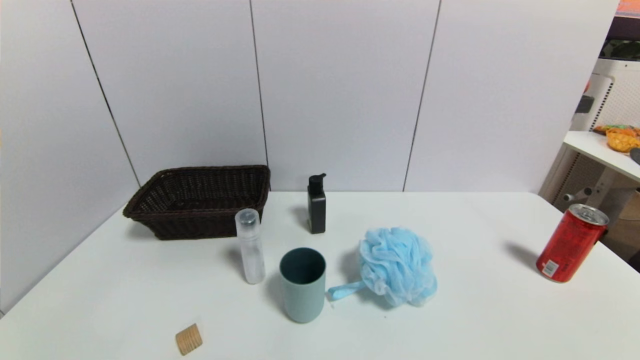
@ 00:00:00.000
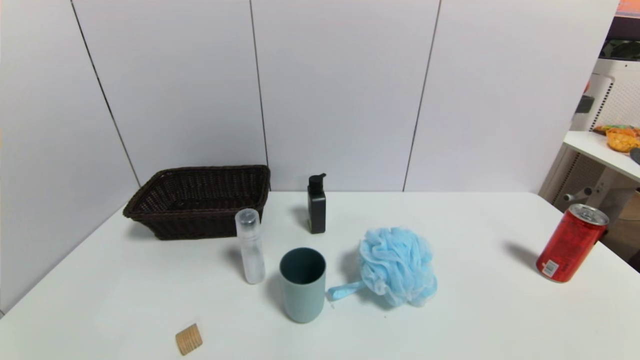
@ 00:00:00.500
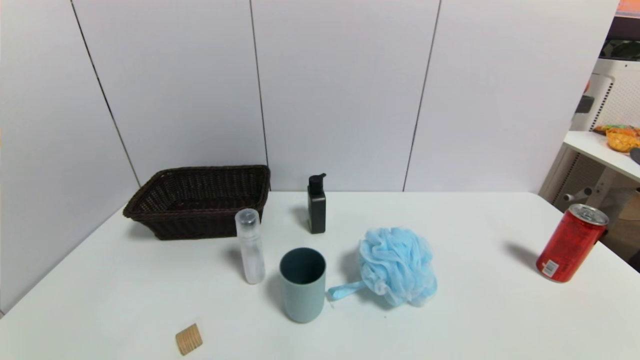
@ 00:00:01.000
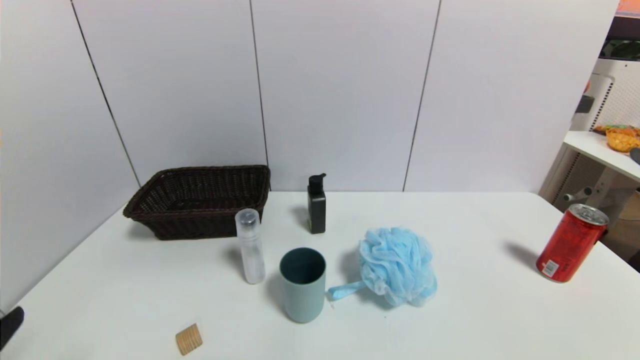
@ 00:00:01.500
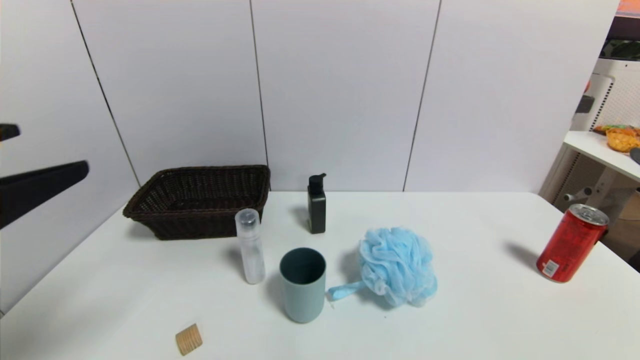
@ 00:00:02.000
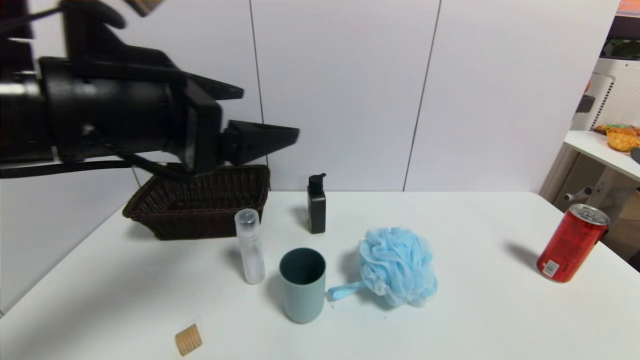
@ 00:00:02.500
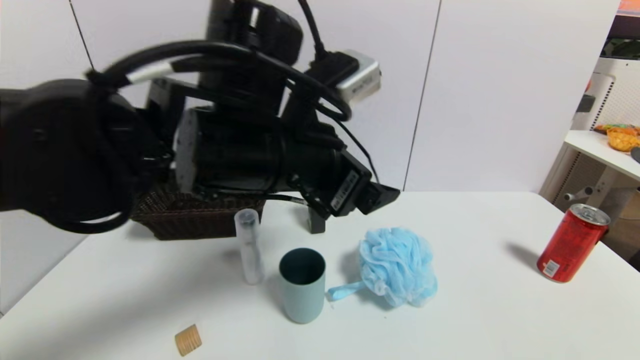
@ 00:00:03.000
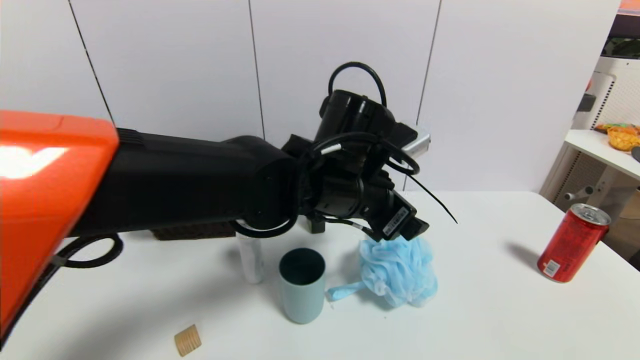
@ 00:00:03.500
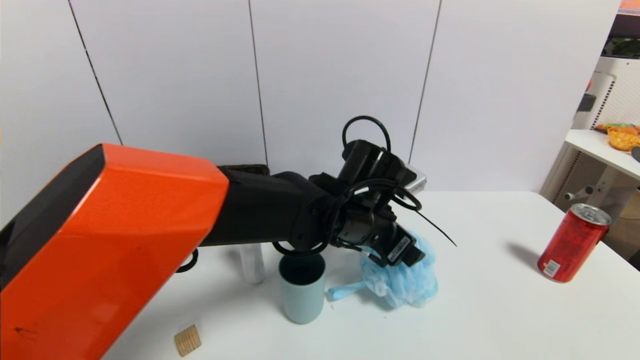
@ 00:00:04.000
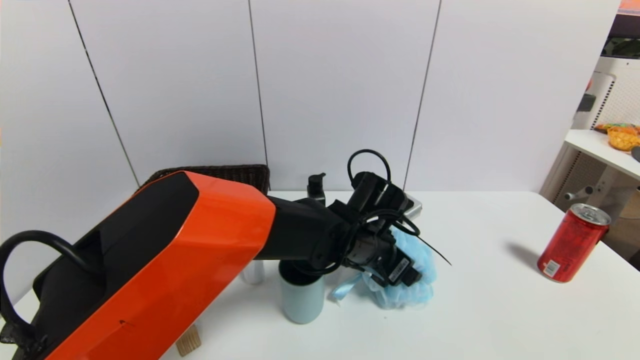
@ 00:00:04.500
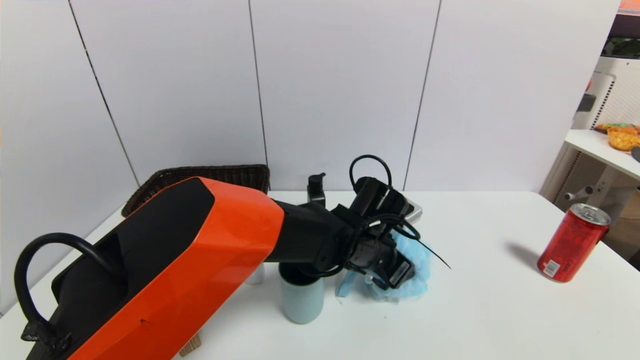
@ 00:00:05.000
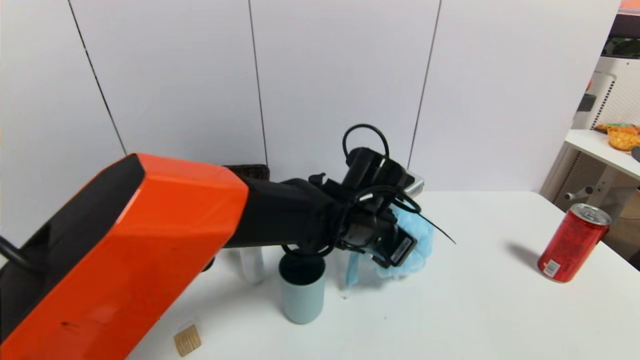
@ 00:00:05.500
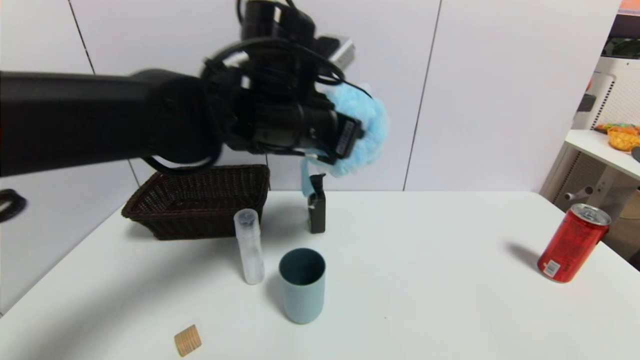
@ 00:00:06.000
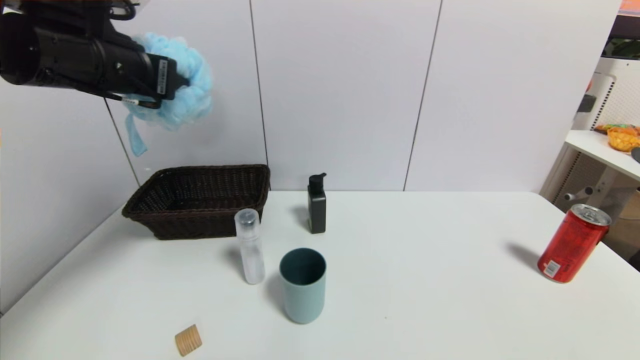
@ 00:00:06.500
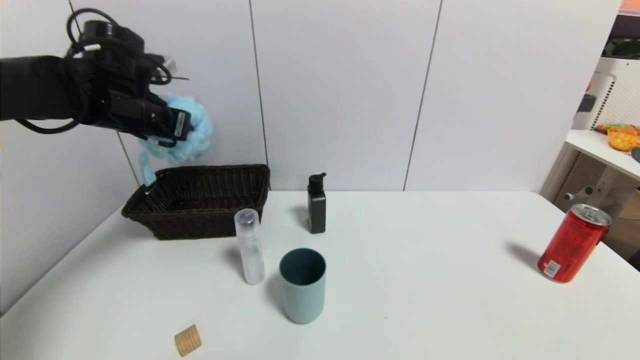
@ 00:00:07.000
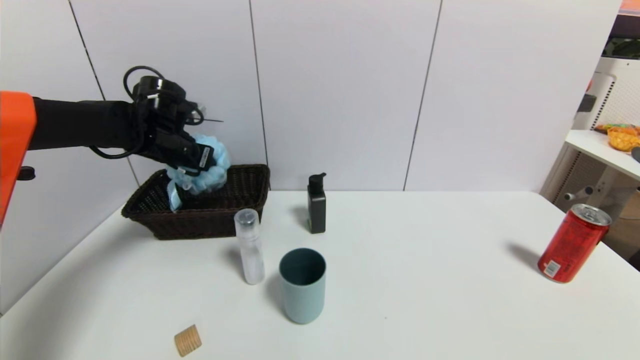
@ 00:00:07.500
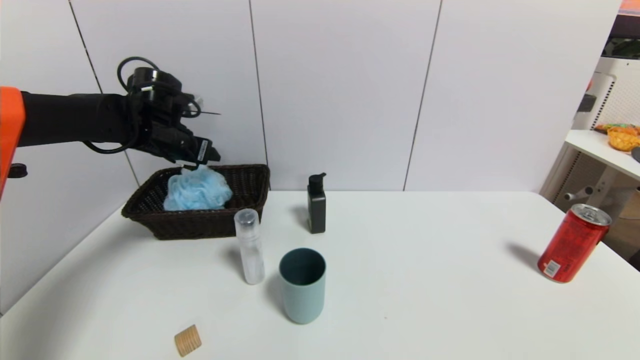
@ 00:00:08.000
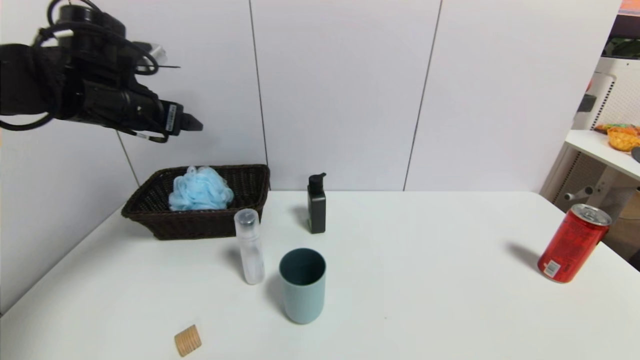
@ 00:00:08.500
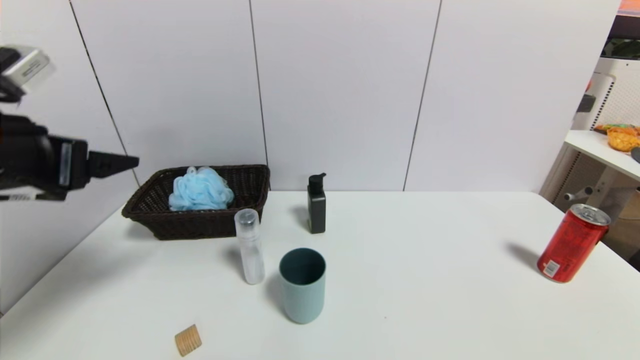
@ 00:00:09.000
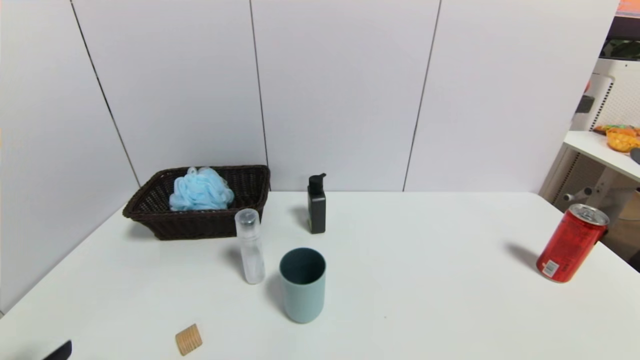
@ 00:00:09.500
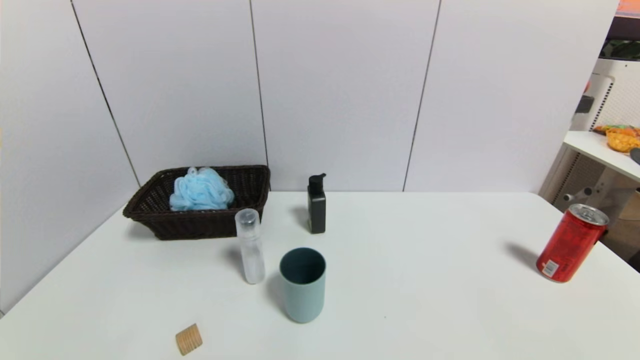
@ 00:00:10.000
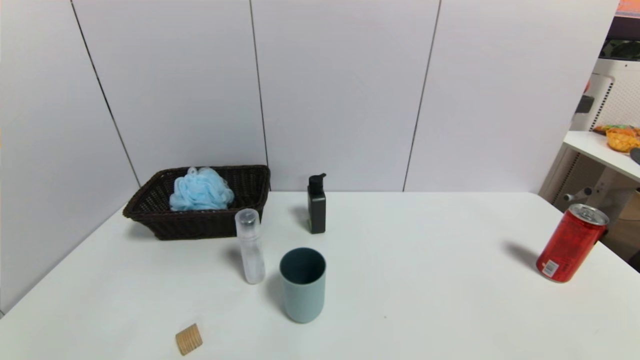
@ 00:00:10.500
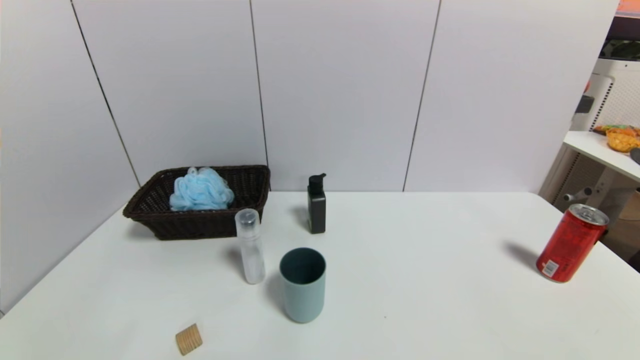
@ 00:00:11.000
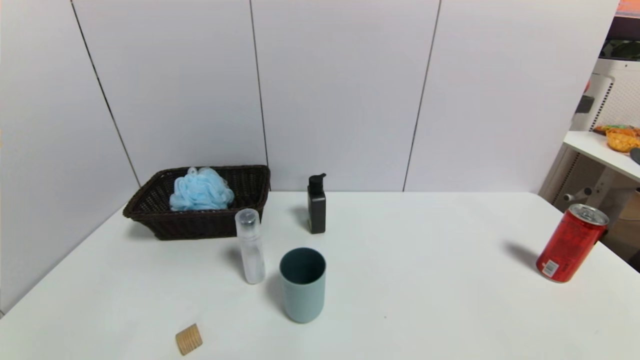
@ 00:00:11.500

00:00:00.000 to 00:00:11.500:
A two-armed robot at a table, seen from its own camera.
Task of the whole recording: use a gripper to pick the target object and place on the brown basket.
Step, 00:00:00.000 to 00:00:05.000: Grasp the shower sphere with the left gripper.
Step, 00:00:05.500 to 00:00:08.000: Place the shower sphere into the basket with the left gripper.
00:00:00.000 to 00:00:02.000: The left gripper moves upward and forward, approximately 25 cm.
00:00:02.000 to 00:00:04.000: The left gripper heads to the right, forward and downward, covering some 40 cm.
00:00:04.000 to 00:00:06.000: The left gripper is displaced upward and to the left by approximately 20 cm, and closes up.
00:00:06.000 to 00:00:07.500: The left gripper goes about 25 cm to the left, forward and downward.
00:00:07.500 to 00:00:09.500: The left gripper is displaced backward by approximately 40 cm, and opens its fingers.
